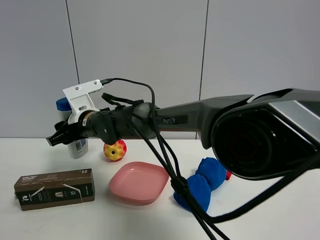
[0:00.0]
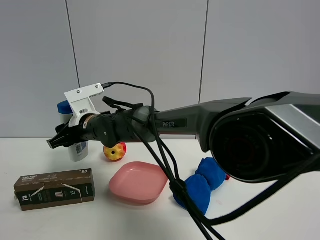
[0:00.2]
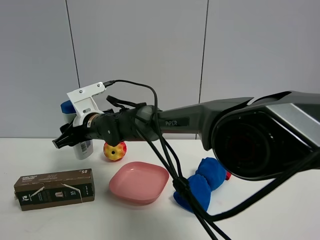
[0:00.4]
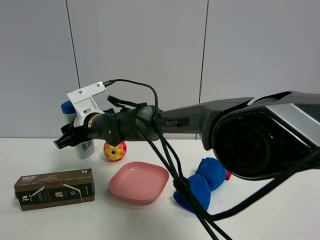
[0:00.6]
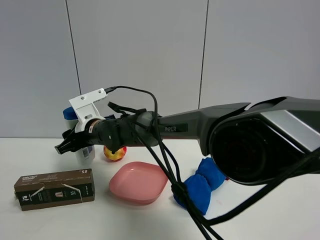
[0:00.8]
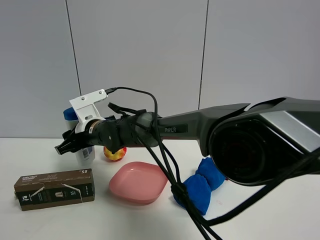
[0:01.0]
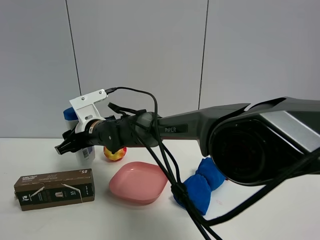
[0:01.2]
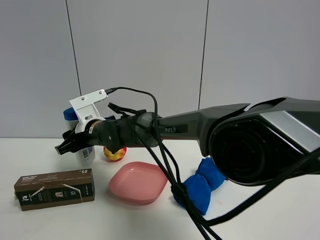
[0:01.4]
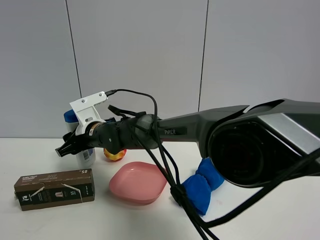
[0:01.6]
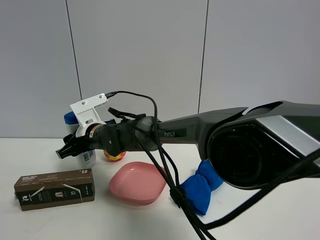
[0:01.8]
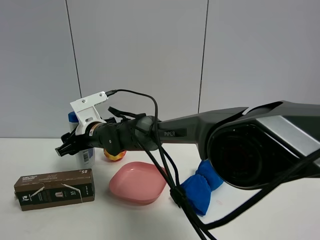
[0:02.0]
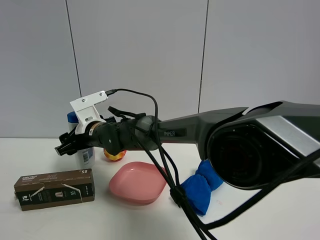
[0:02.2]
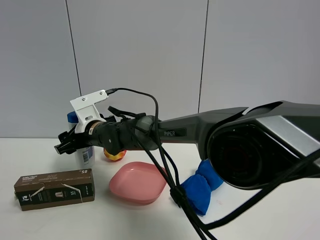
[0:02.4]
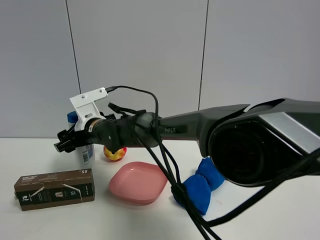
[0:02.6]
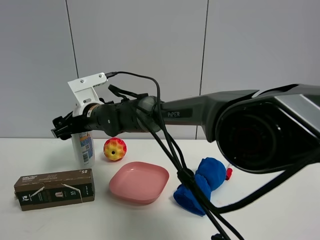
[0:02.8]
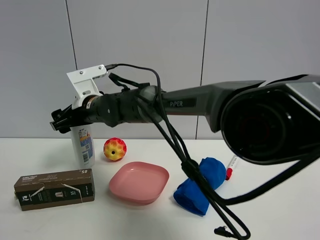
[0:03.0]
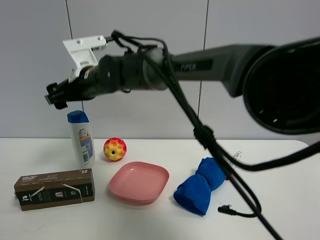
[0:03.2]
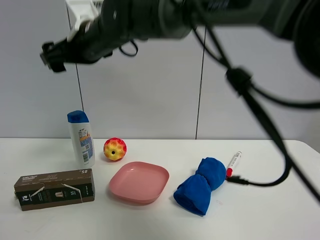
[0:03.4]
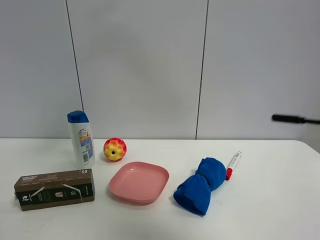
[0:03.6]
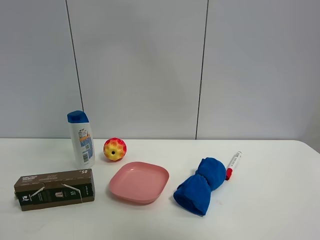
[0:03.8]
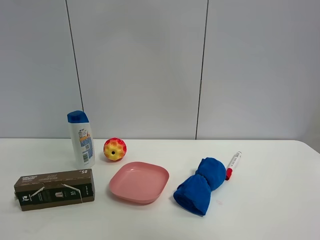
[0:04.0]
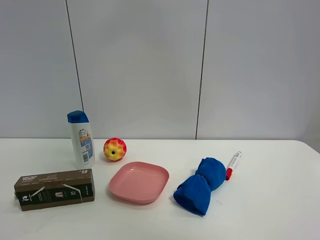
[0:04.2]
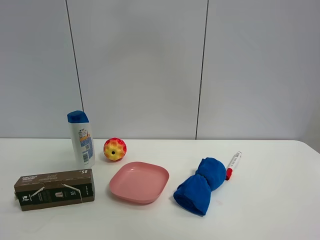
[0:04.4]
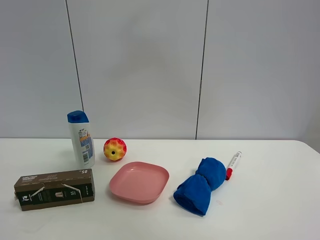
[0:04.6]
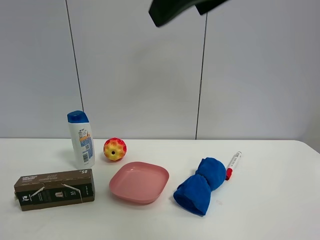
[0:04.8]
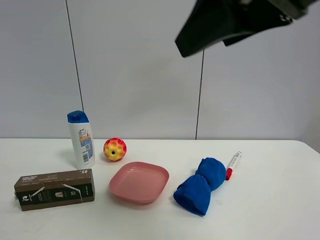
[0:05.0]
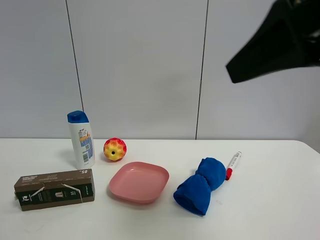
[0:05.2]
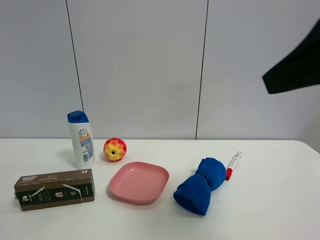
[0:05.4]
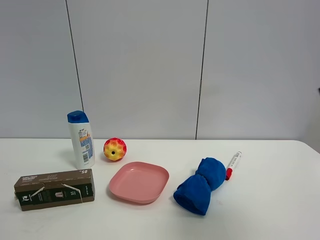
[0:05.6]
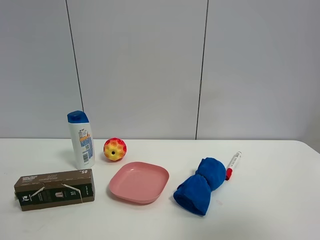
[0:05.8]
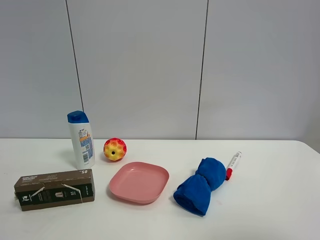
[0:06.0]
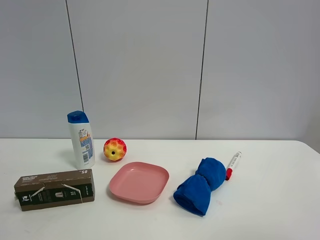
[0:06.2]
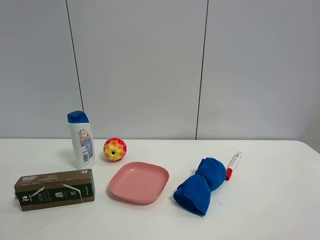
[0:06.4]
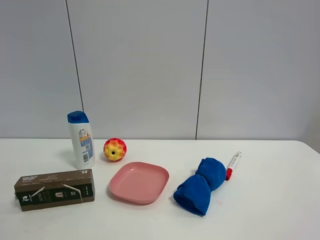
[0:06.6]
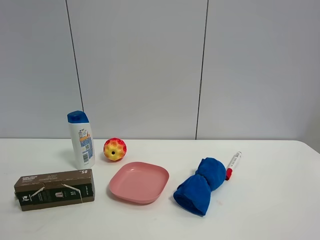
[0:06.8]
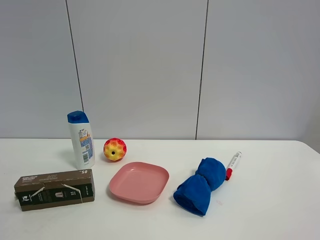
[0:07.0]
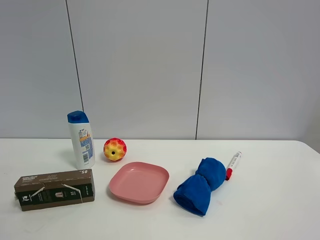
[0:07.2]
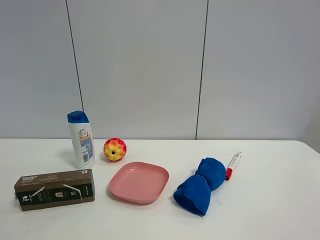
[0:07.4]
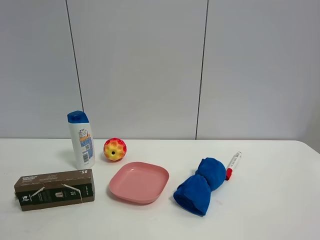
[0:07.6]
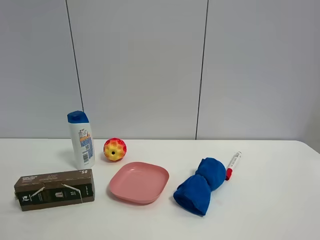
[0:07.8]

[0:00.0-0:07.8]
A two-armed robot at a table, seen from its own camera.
Task of the whole recording: the gripper move the object.
Step, 0:00.0 to 0:02.4: Place the shampoo on the table with the right gripper.
0:00.0 to 0:01.6: The grippers move only a little.
0:01.6 to 0:03.2: The right gripper travels upward by some 15 cm, and opens up.
0:03.2 to 0:04.6: The right gripper heads upward, to the right and backward, covering approximately 35 cm.
0:04.6 to 0:06.2: The right gripper moves to the right, backward and downward, about 35 cm.

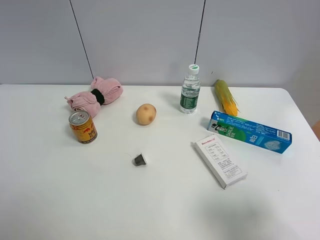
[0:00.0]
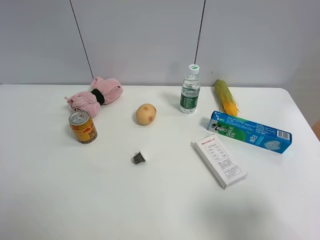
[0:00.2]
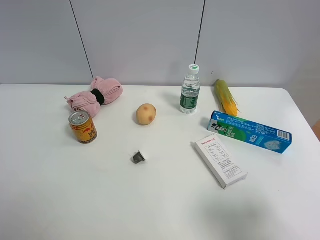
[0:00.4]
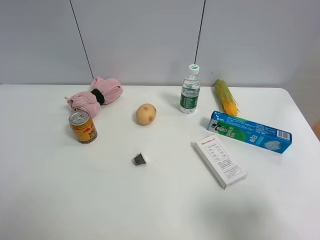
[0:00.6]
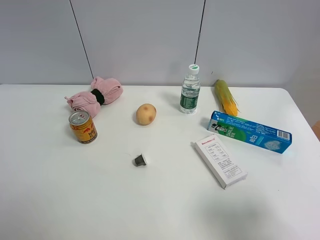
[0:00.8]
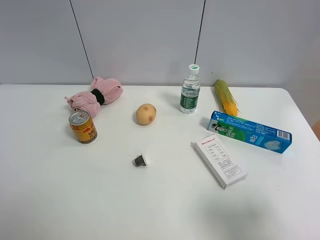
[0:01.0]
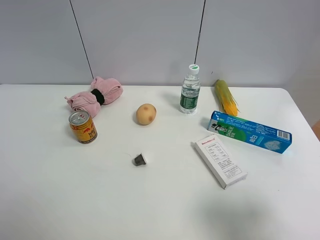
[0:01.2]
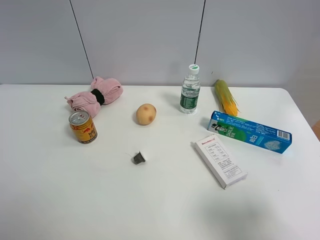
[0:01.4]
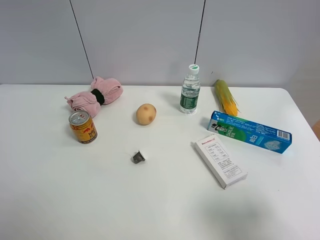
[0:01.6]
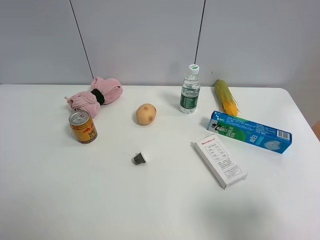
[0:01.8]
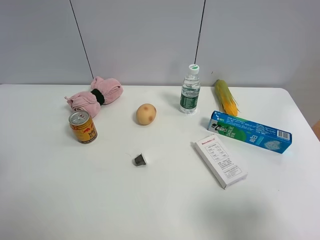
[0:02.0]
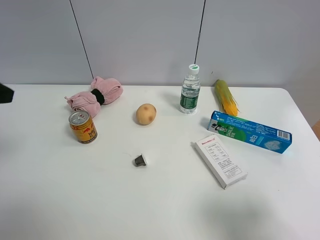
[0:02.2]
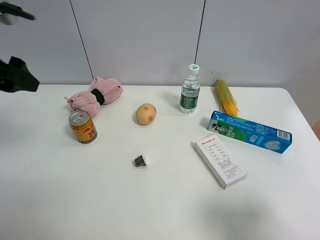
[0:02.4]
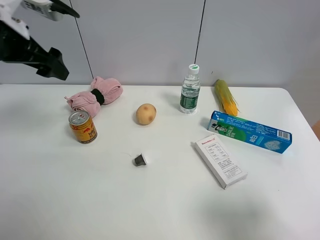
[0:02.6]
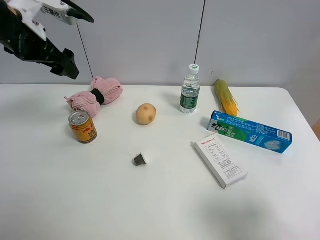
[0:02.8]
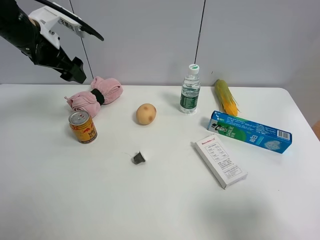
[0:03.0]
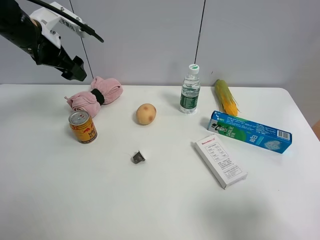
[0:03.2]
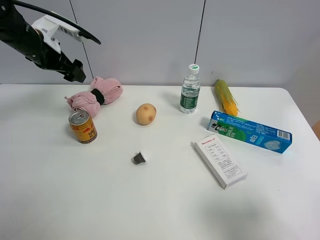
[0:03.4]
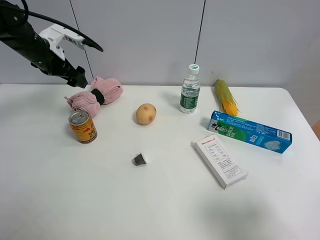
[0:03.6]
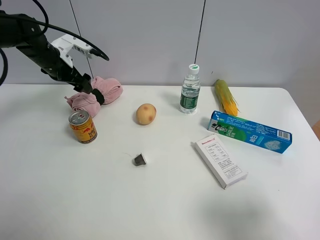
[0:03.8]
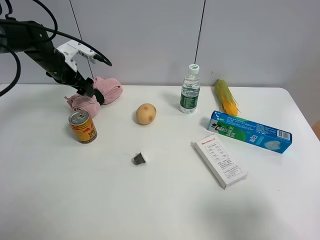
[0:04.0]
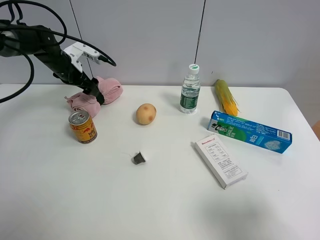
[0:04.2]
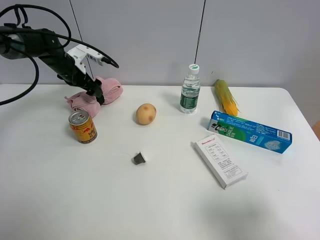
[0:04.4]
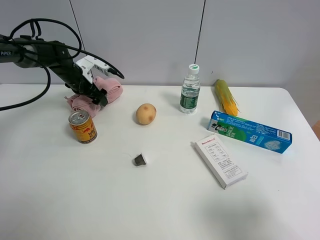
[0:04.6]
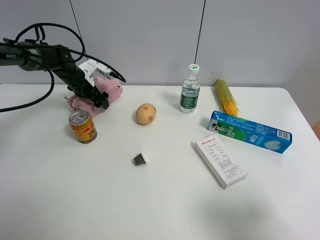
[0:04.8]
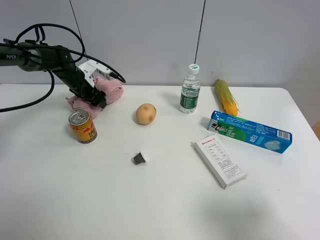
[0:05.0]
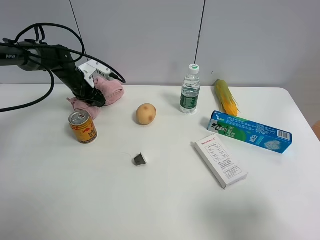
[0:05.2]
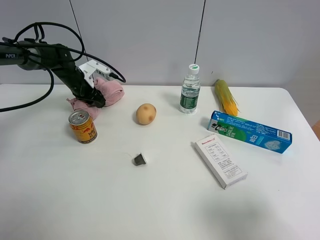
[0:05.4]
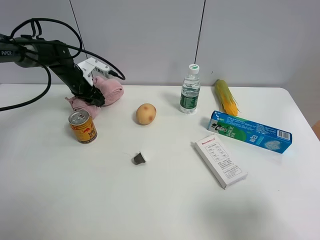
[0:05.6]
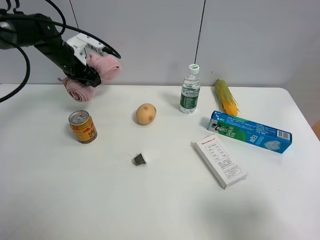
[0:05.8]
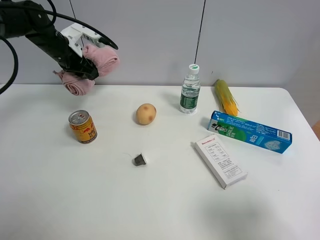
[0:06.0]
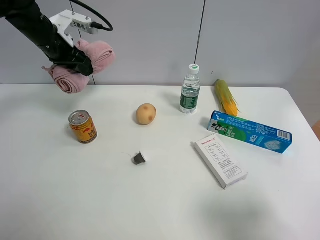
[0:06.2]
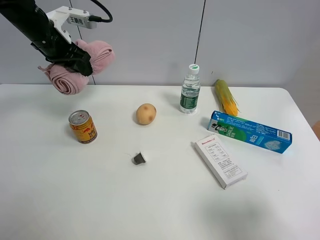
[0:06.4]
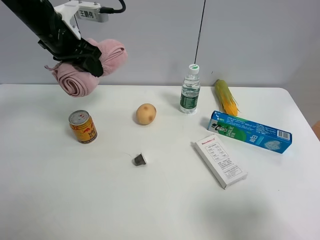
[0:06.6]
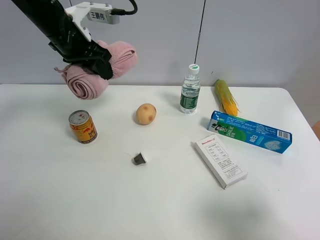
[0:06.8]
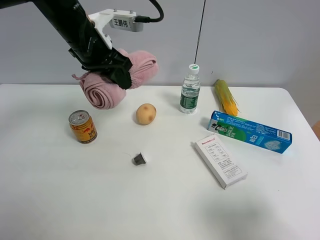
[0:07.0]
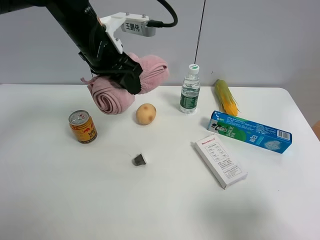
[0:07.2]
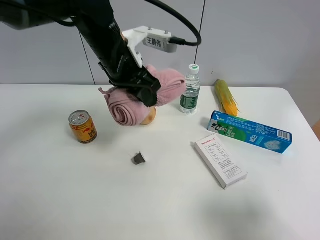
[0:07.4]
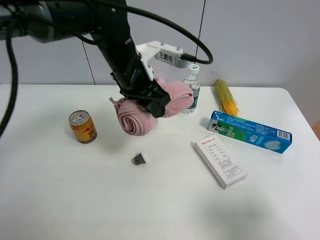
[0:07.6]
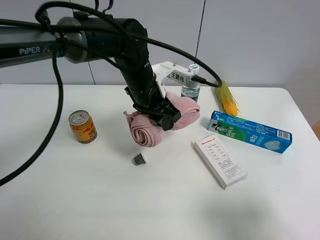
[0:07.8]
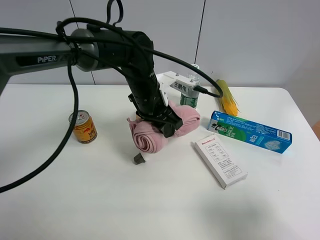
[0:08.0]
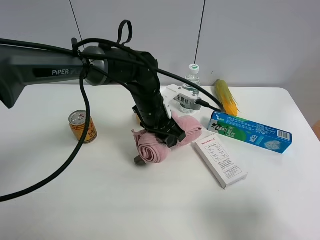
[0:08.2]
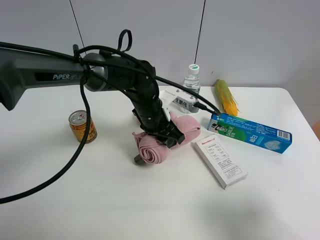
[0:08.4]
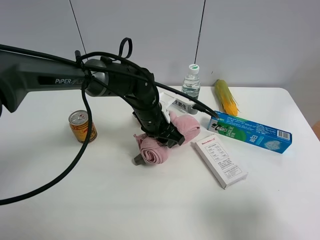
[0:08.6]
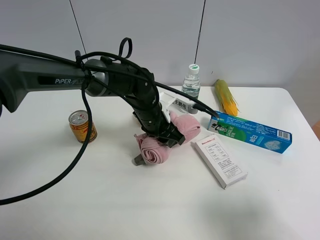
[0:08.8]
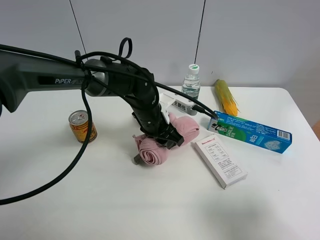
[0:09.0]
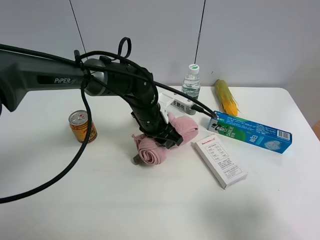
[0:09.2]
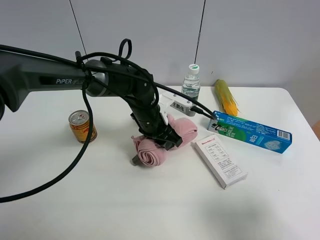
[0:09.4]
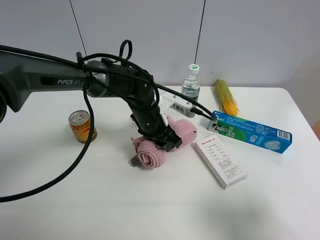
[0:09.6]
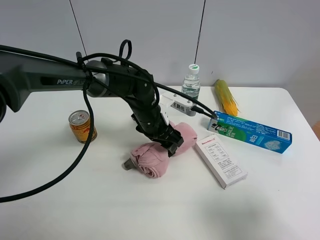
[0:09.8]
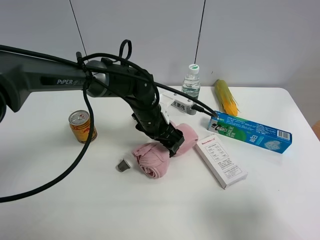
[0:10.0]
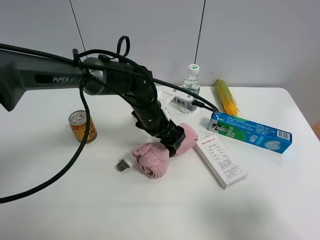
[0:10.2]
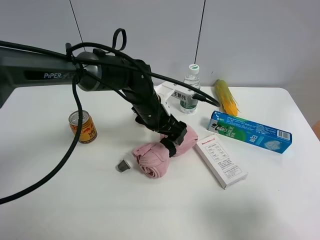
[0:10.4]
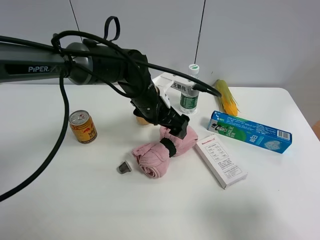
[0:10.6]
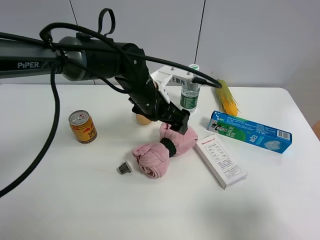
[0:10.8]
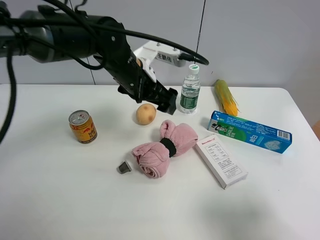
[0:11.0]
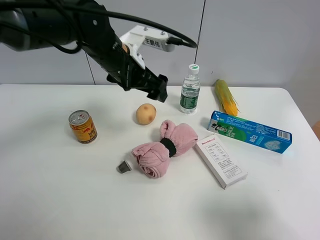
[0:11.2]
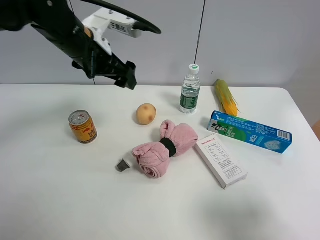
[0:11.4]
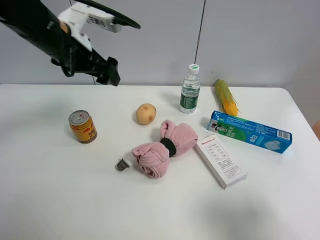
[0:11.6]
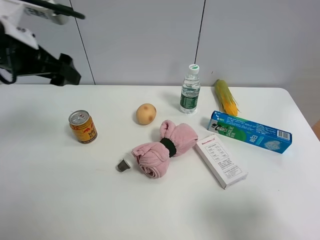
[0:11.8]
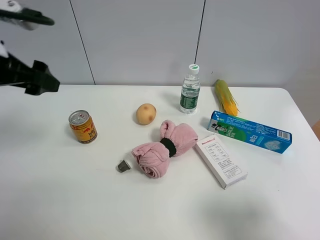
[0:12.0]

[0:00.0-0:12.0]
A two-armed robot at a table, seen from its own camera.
Task of the whole recording: the gripper move the object.
Step, 0:00.0 to 0:05.4: Grasp the pink towel with the left gripper.
Step, 0:05.6 to 0:11.0: Place the pink towel on the table with the left gripper.
0:01.6 to 0:03.0: The left gripper shifts some 35 cm forward.
0:03.0 to 0:04.4: The left gripper goes approximately 20 cm downward and forward.
0:04.4 to 0:06.0: The left gripper goes about 10 cm upward, and closes its fingers.
0:06.0 to 0:07.6: The left gripper heads to the right and backward, covering some 25 cm.
0:07.6 to 0:09.0: The left gripper moves downward, approximately 10 cm.
0:09.0 to 0:10.4: The left gripper opens.
0:10.4 to 0:12.0: The left gripper moves to the left, upward and backward, some 30 cm.

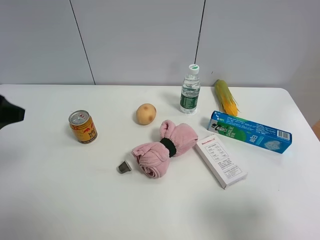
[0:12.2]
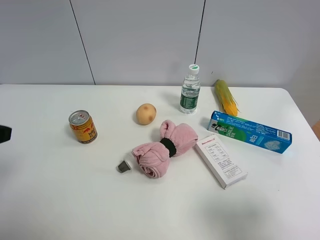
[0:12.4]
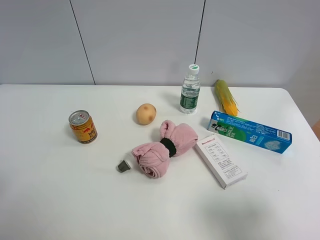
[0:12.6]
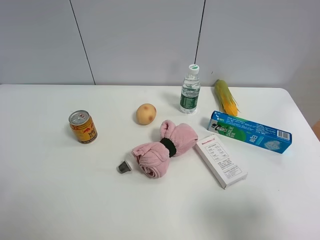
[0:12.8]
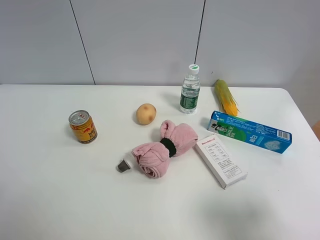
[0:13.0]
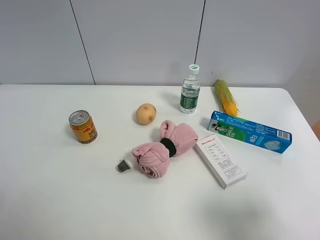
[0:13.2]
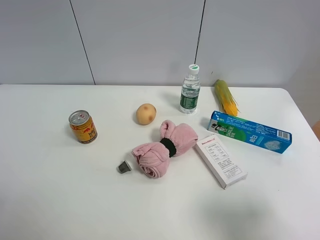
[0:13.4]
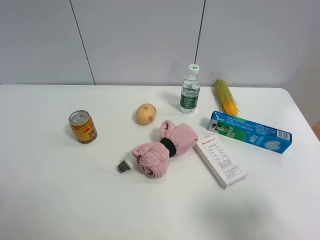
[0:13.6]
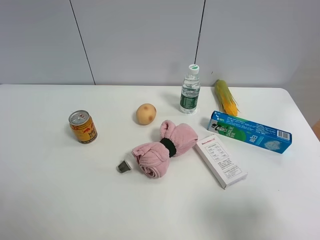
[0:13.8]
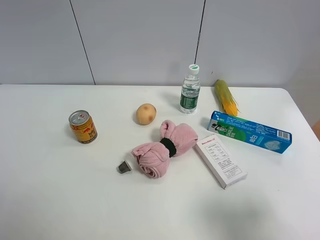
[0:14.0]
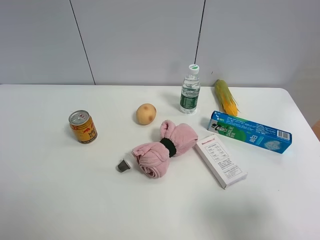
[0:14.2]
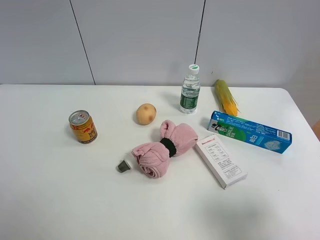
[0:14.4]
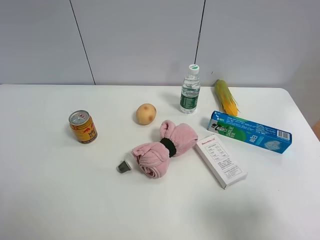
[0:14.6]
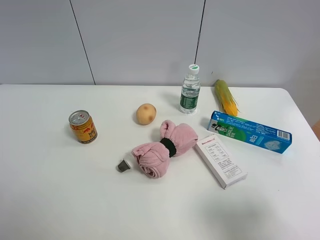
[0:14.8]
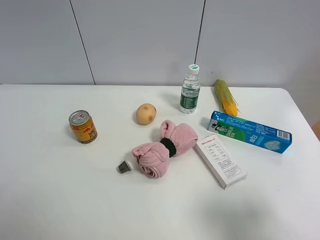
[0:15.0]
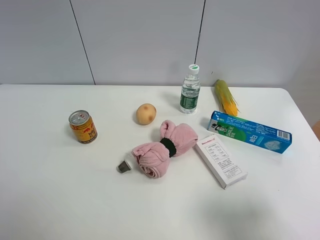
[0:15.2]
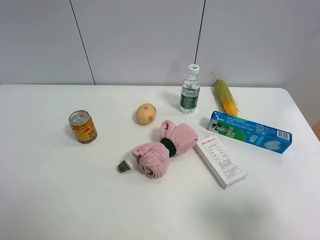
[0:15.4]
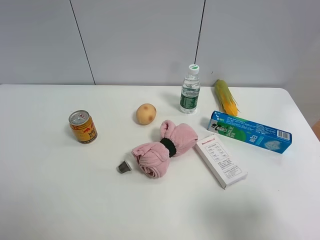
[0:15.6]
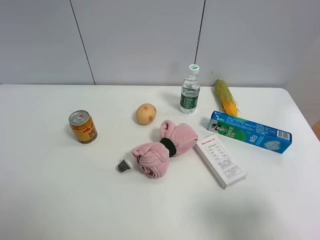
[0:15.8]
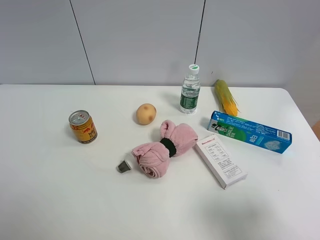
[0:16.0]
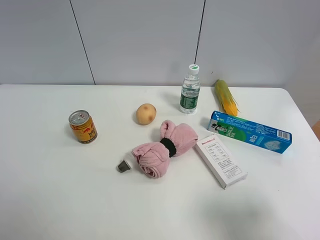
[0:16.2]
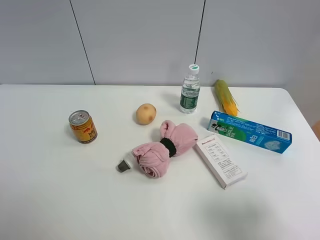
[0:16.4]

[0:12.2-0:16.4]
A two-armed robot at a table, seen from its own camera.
Task of the whole recording: the gripper move the object.
0:12.2 to 0:13.6: The left gripper is displaced backward by about 15 cm.
0:15.0 to 0:16.4: Both grippers stay put.
